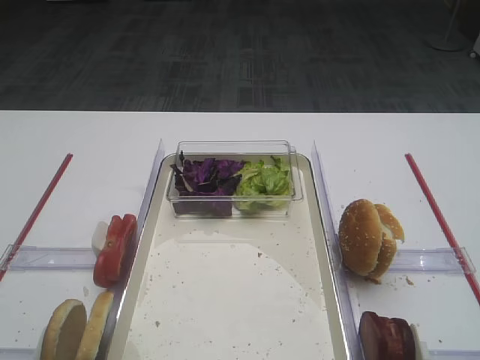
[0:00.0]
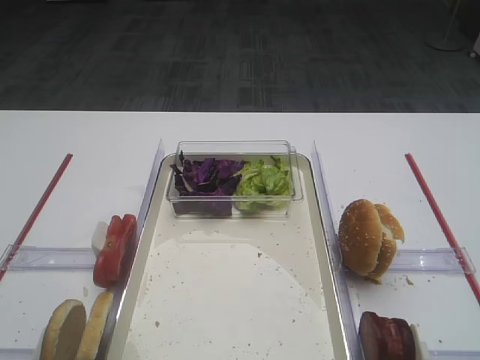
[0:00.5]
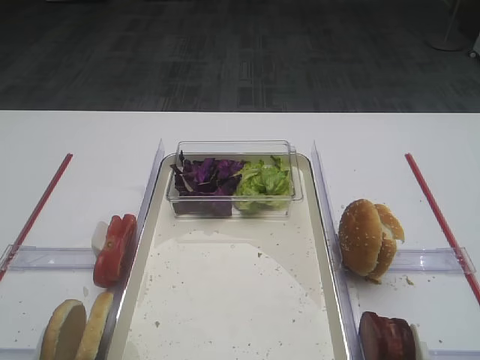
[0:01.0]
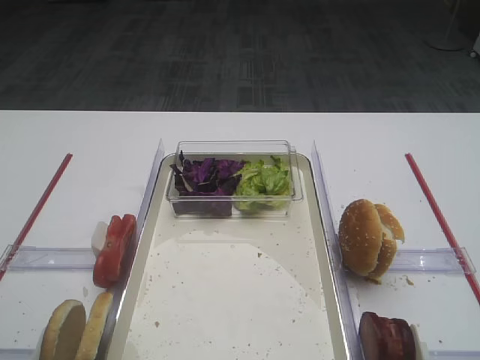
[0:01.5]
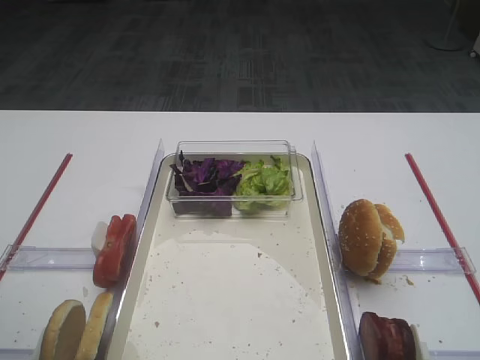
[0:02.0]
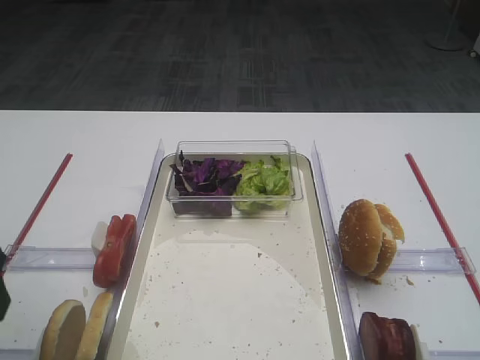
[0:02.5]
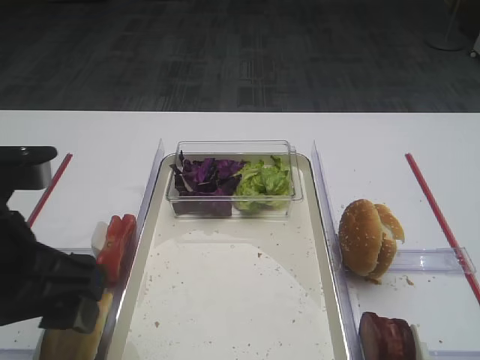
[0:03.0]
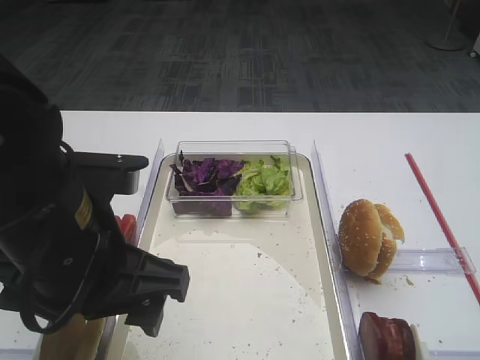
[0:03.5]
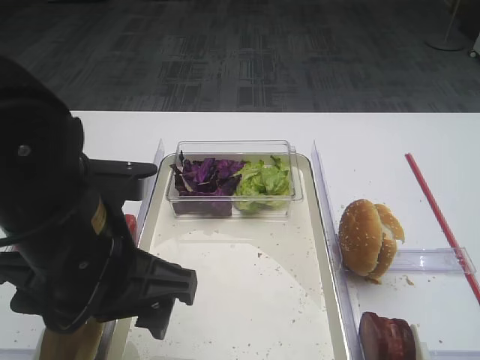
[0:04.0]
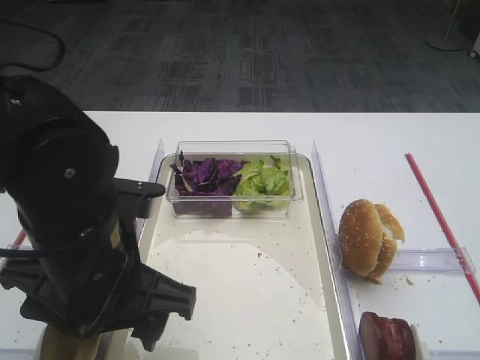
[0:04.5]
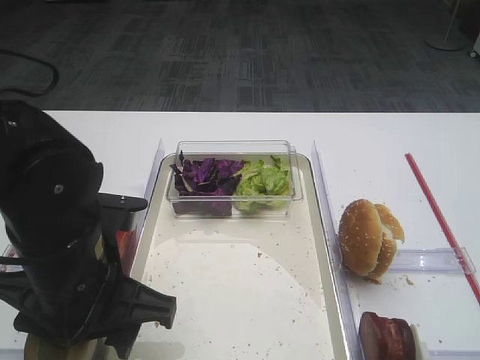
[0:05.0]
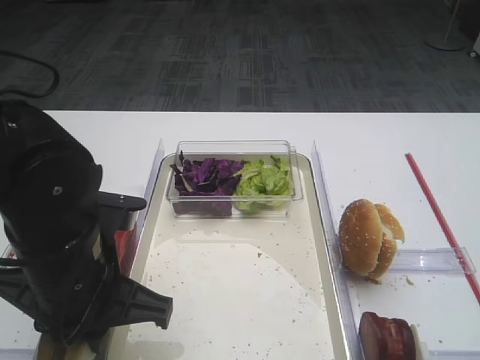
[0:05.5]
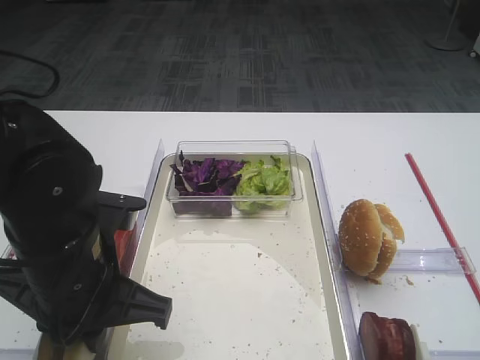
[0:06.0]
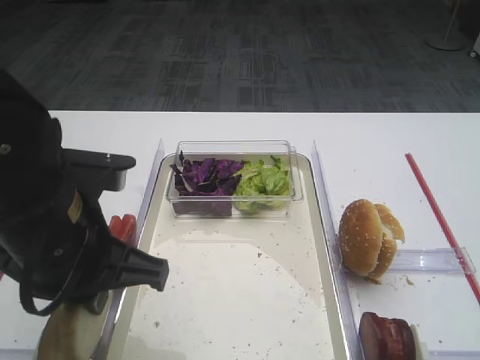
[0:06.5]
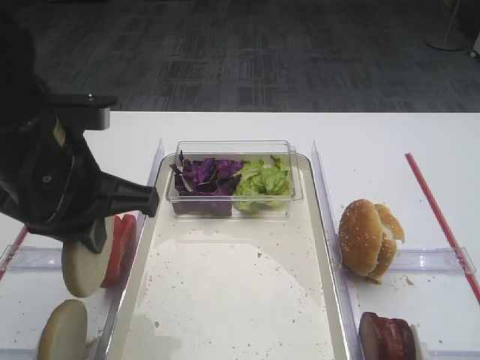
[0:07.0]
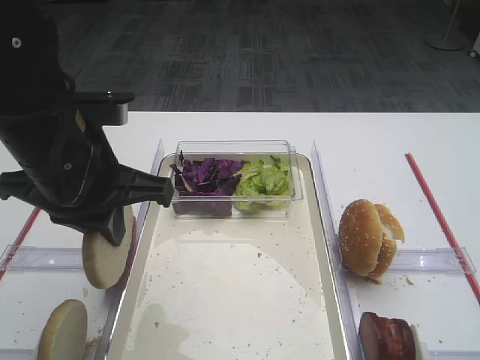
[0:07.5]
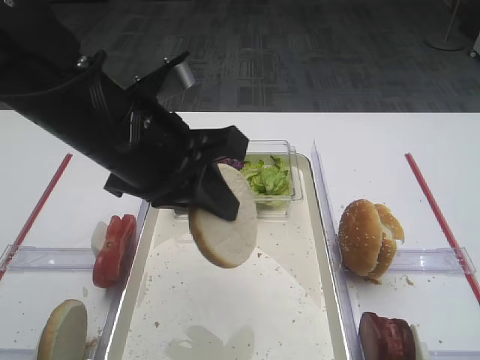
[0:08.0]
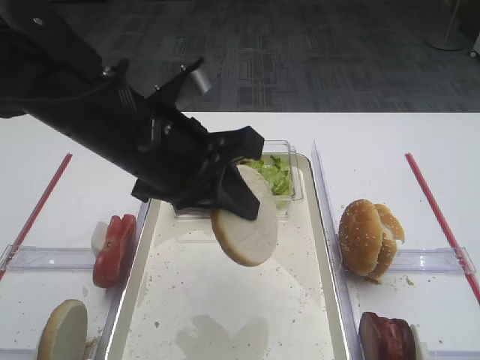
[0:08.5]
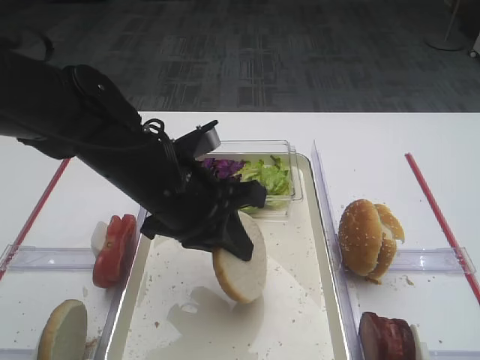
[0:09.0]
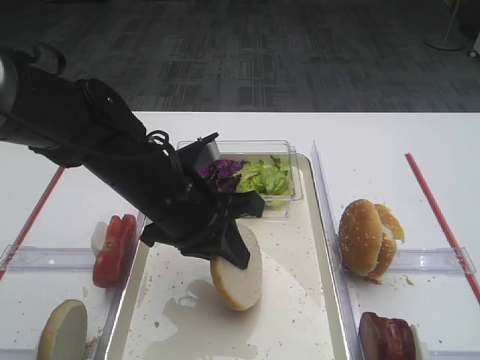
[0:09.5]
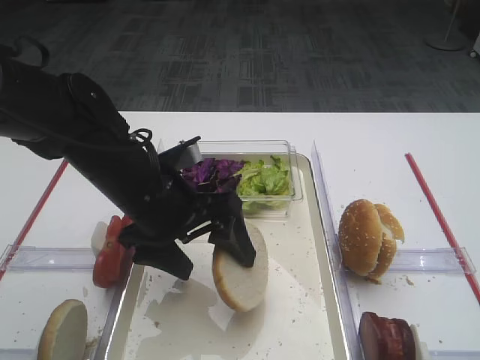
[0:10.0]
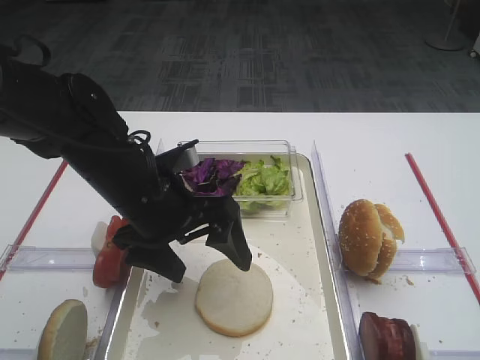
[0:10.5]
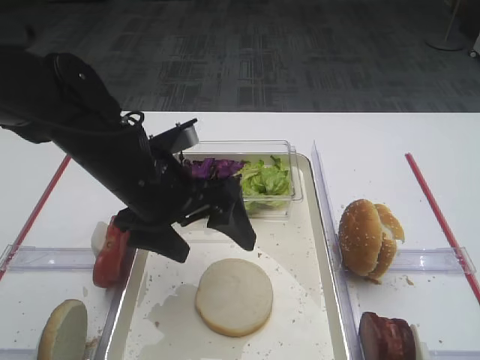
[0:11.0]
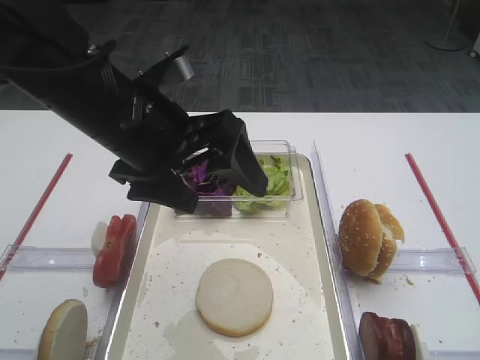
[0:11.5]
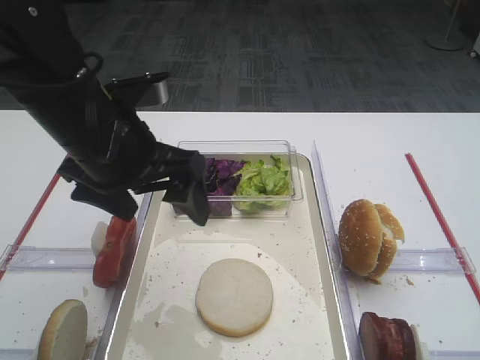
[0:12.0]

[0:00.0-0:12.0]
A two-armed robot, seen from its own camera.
Step, 0:00.0 to 0:06.5: Pick up the bread slice with the left gripper.
Step, 0:07.0 to 0:11.0: Place the bread slice on the tray with the left gripper.
0:02.0 to 0:04.0: The left gripper heads to the right, covering approximately 20 cm.
0:04.0 to 0:06.0: The left gripper closes its fingers.
0:06.0 to 0:08.0: The left gripper goes about 10 cm upward.
0:08.0 to 0:10.0: The left gripper travels downward by approximately 10 cm, and opens its fingers.
0:10.0 to 0:12.0: The left gripper goes approximately 10 cm upward.

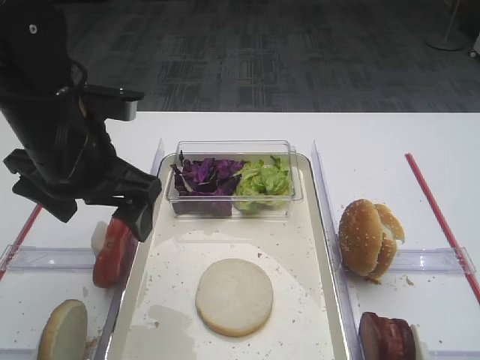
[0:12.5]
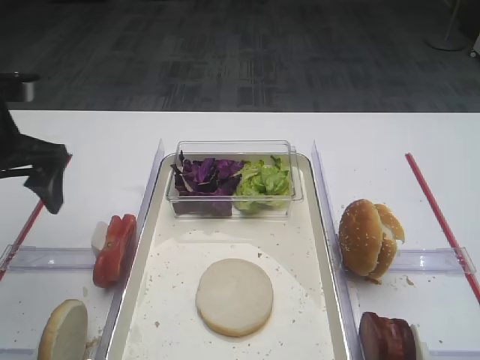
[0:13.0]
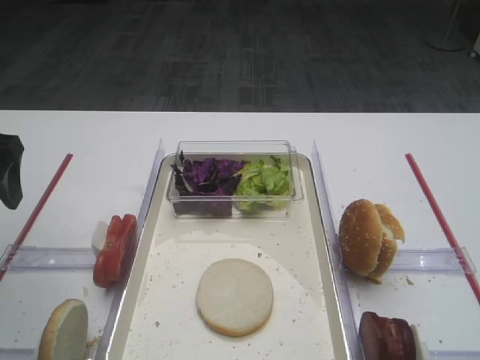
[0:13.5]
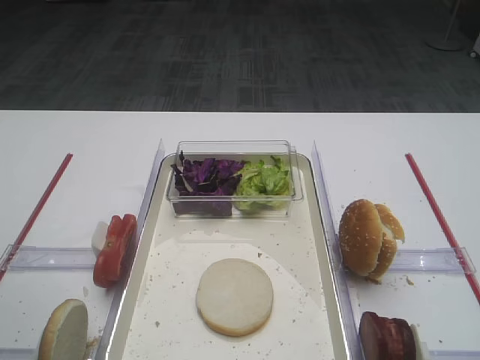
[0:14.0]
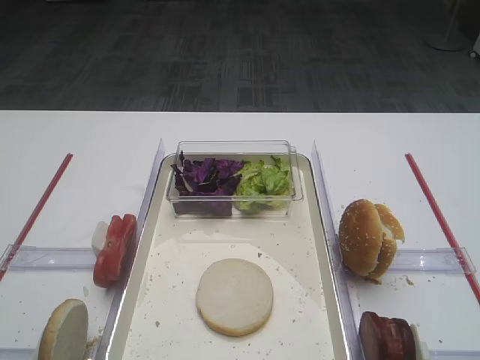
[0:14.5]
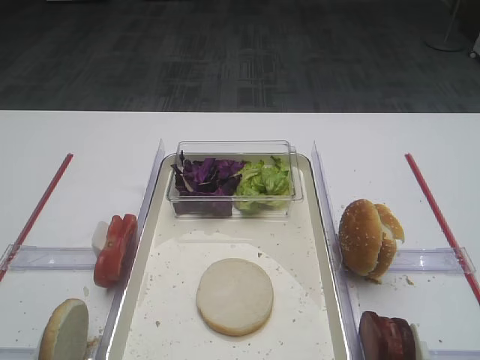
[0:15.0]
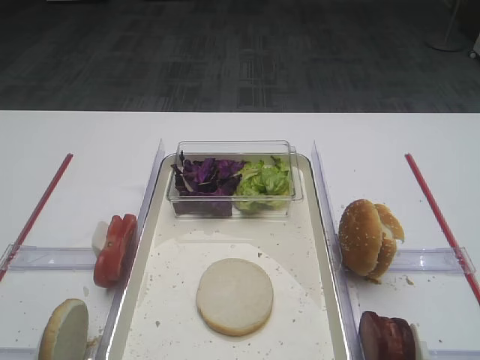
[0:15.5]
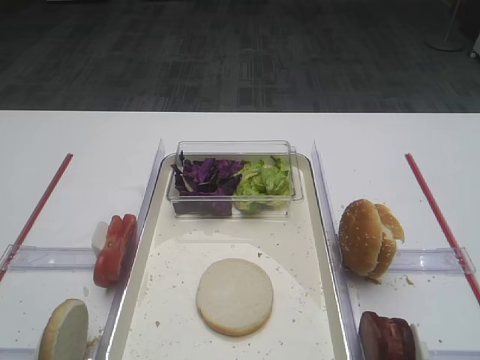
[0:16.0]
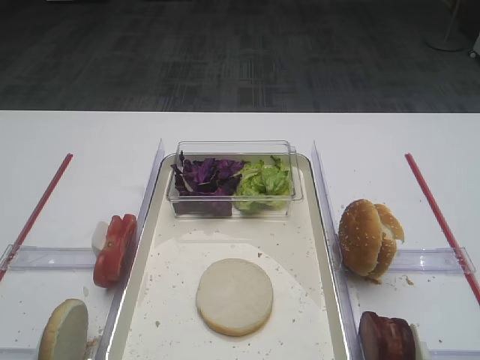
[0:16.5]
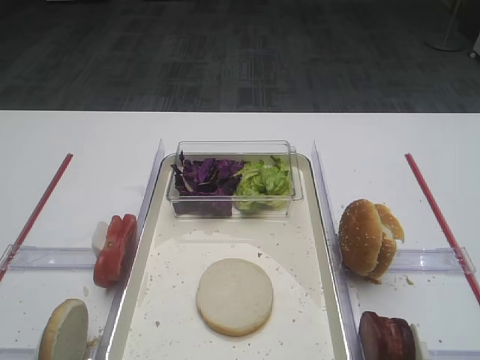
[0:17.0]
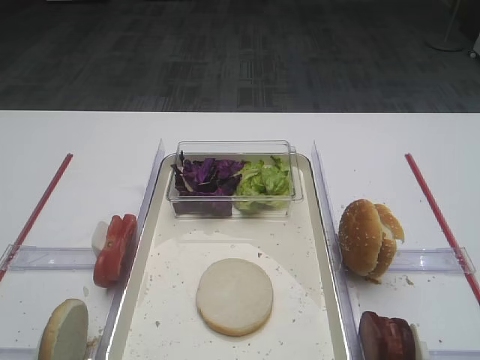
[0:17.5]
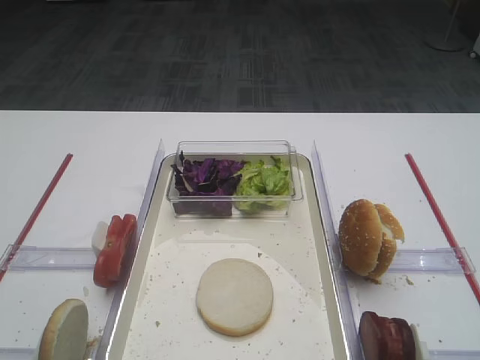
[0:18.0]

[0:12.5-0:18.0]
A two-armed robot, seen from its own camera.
0:12.5 to 0:14.5: The left gripper is displaced backward and to the left by approximately 25 cm.
0:16.0 to 0:18.0: Both grippers stay put.

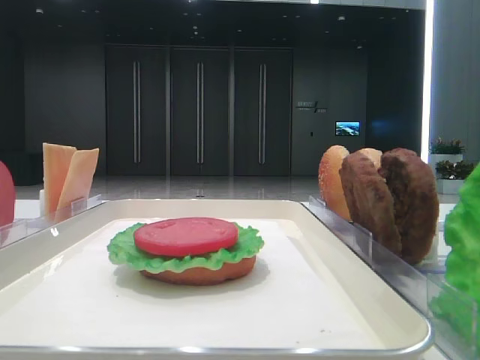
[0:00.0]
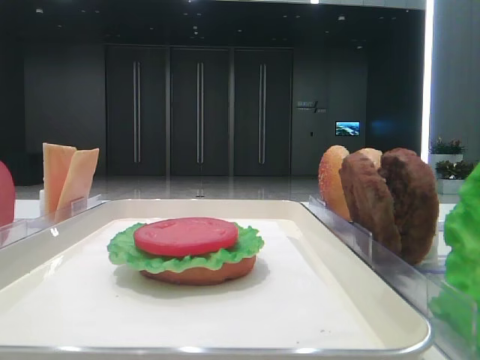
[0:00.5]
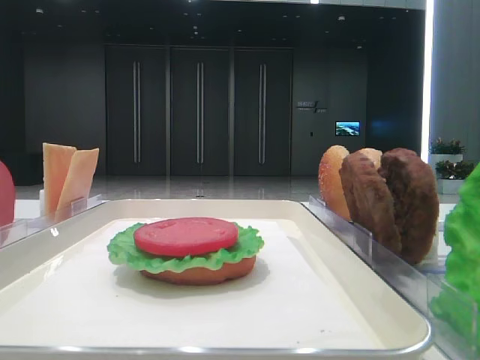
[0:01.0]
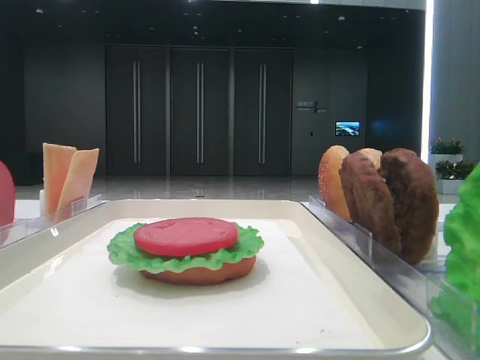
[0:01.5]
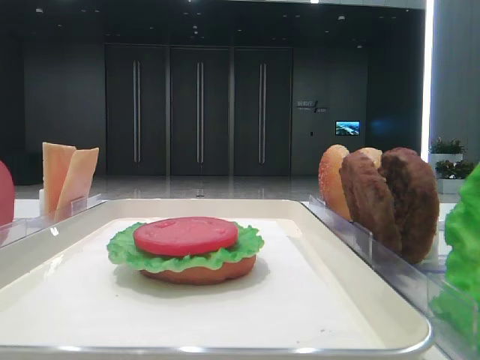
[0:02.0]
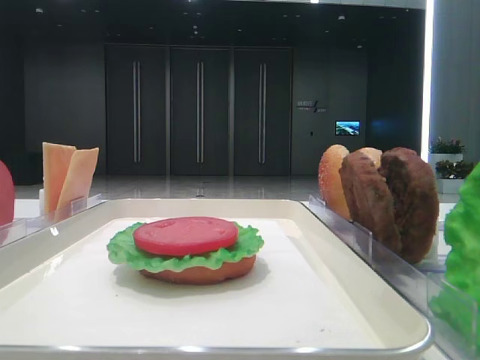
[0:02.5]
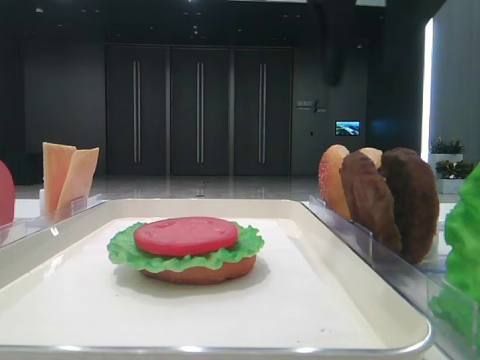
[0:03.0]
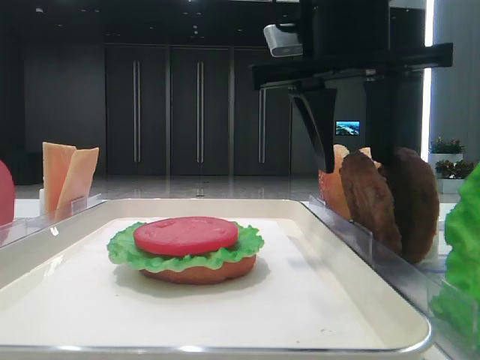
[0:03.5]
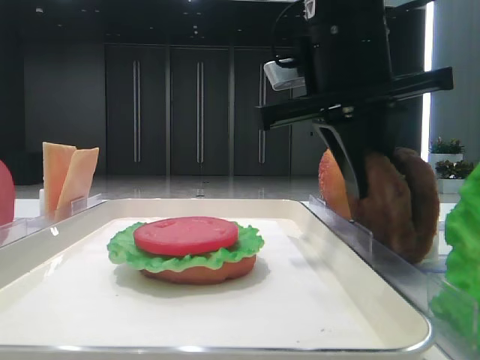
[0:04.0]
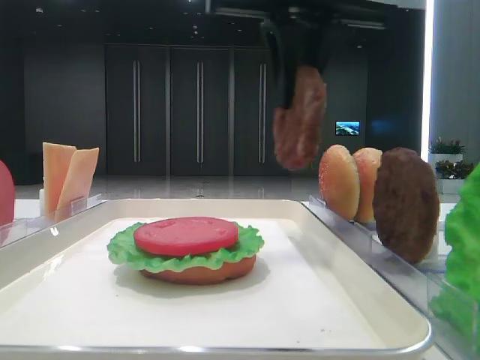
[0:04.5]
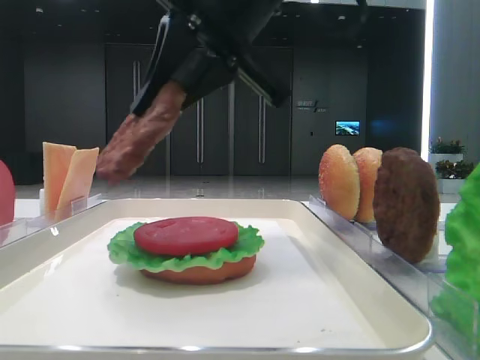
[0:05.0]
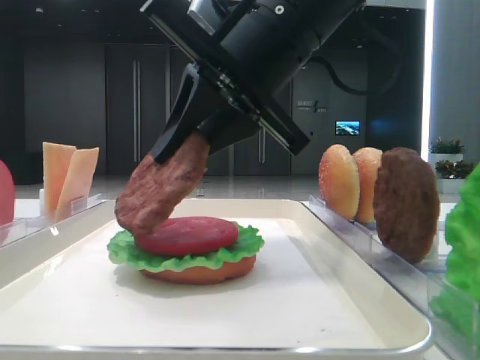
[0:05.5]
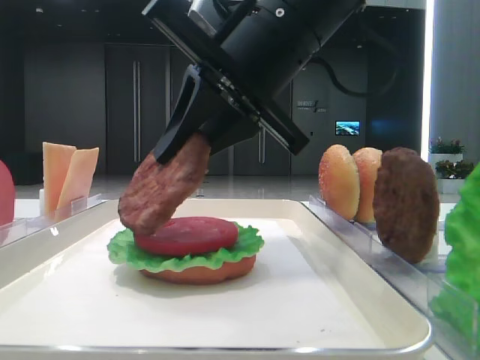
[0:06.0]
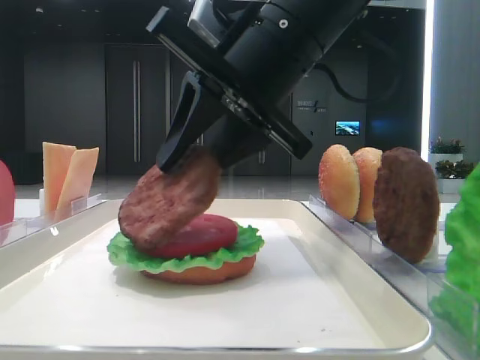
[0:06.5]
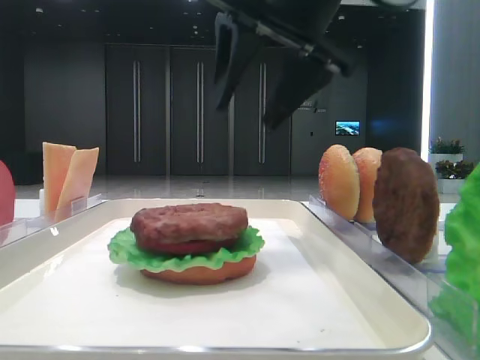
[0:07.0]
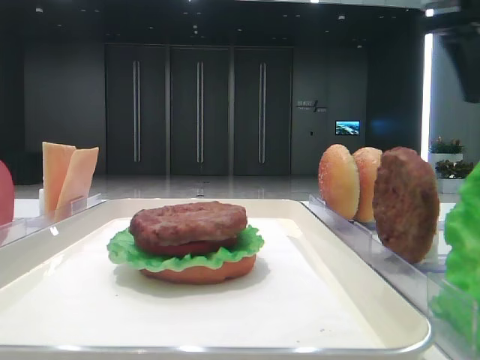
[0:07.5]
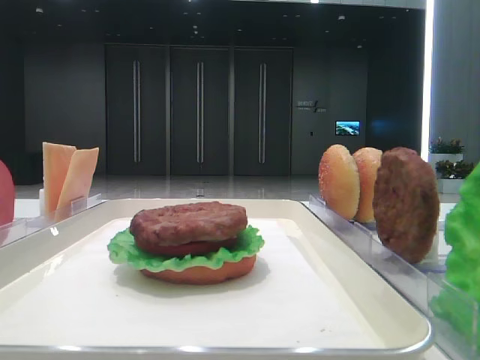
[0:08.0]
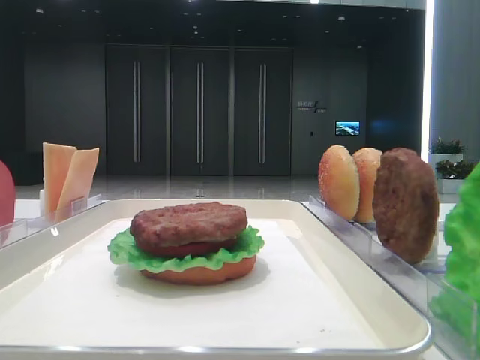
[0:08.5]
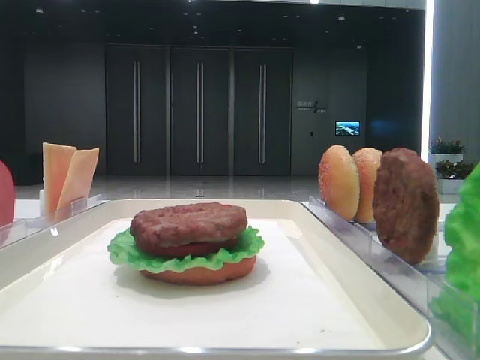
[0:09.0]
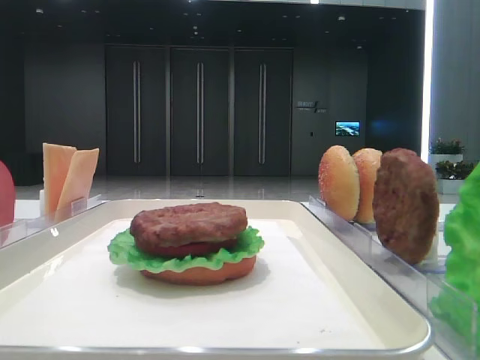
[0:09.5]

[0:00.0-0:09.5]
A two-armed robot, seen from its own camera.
Step, 0:00.0 to 0:03.5: Grab the patty with the right hand.
Step, 0:04.0 to 0:06.5: Place the patty on the tomato slice with the right hand.
0:02.0 to 0:04.0: The left gripper closes; the right gripper goes some 30 cm to the left, forward and downward, and closes up.
0:04.0 to 0:05.5: The right gripper goes upward and returns, roughly 10 cm each way.
0:05.5 to 0:07.5: The right gripper heads to the right and upward, covering approximately 25 cm, and opens its fingers.
0:07.5 to 0:09.5: The right gripper is displaced backward by some 40 cm.
